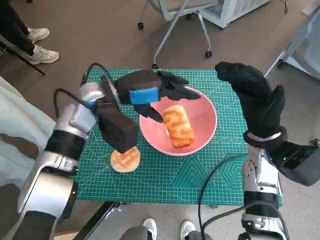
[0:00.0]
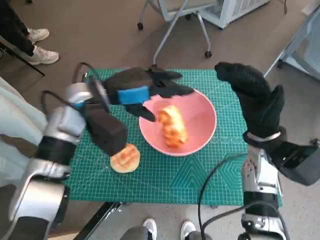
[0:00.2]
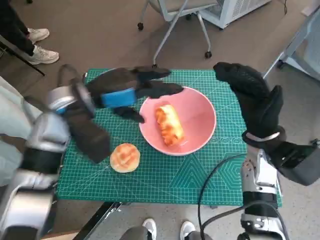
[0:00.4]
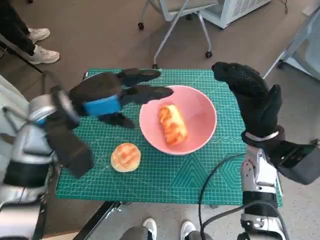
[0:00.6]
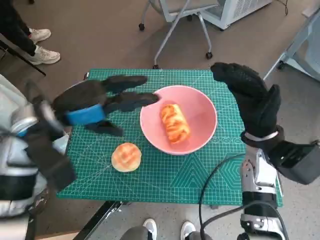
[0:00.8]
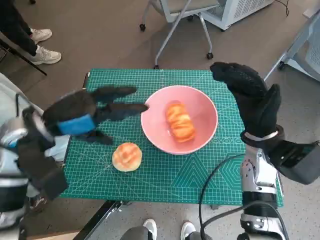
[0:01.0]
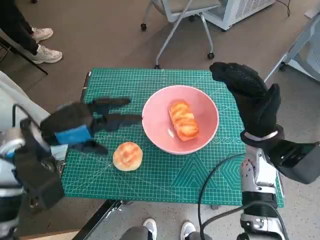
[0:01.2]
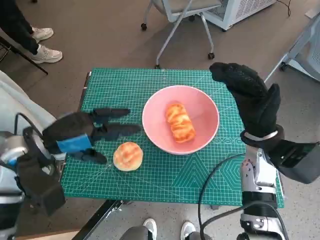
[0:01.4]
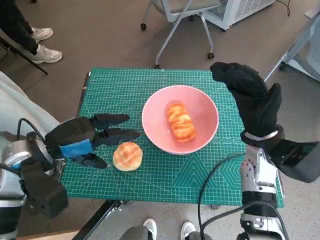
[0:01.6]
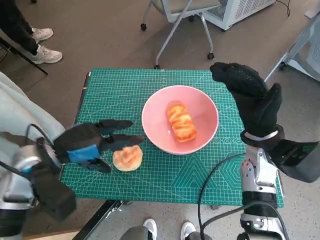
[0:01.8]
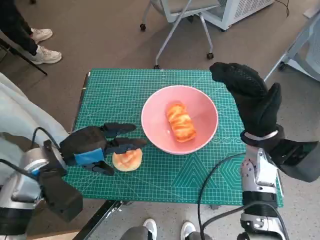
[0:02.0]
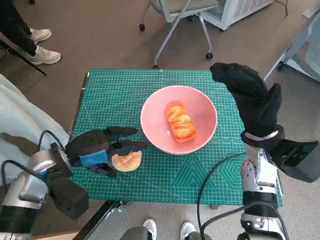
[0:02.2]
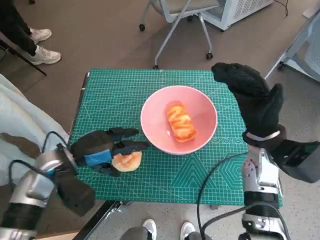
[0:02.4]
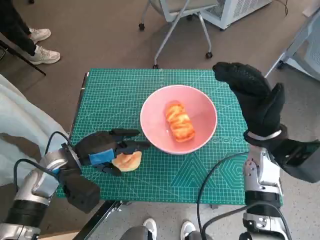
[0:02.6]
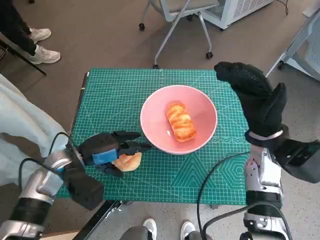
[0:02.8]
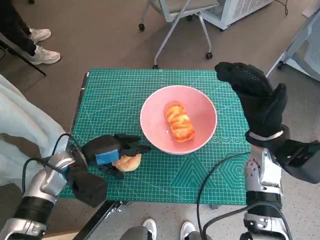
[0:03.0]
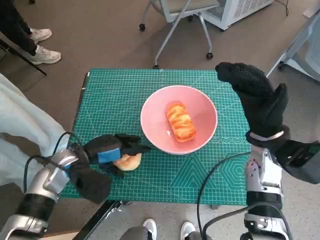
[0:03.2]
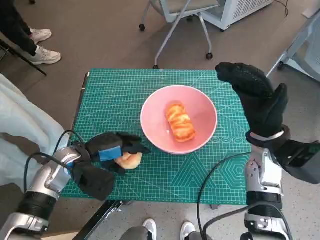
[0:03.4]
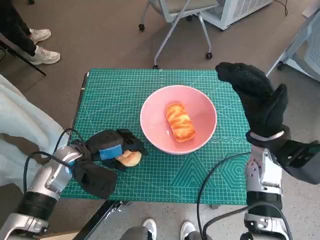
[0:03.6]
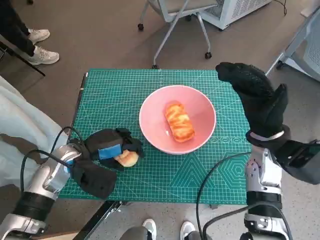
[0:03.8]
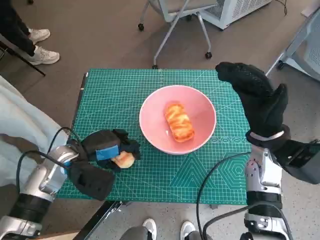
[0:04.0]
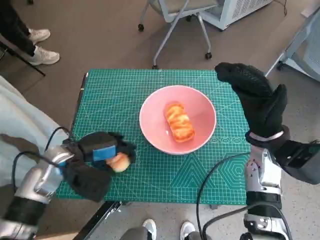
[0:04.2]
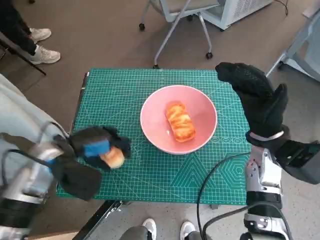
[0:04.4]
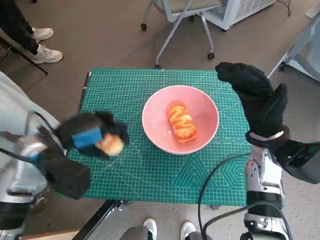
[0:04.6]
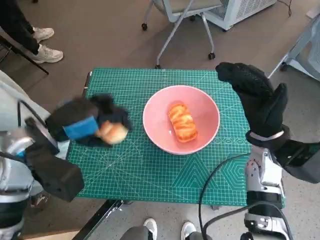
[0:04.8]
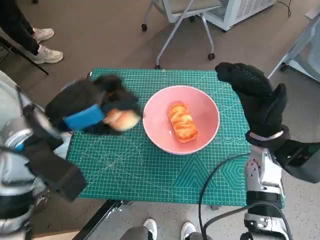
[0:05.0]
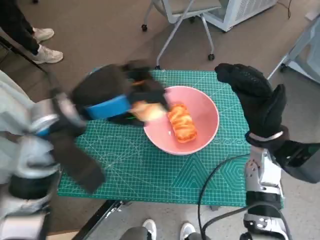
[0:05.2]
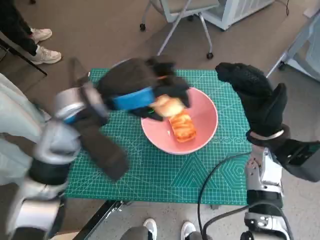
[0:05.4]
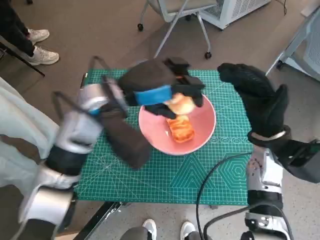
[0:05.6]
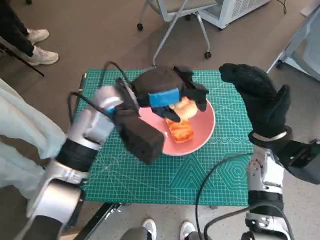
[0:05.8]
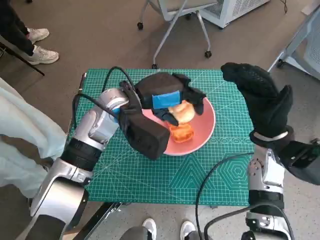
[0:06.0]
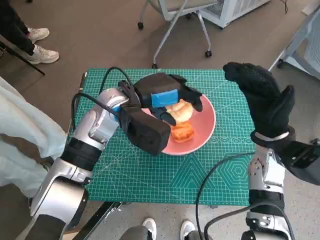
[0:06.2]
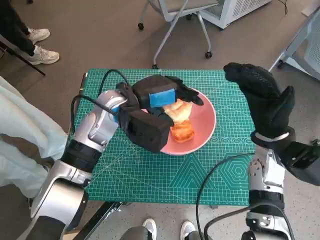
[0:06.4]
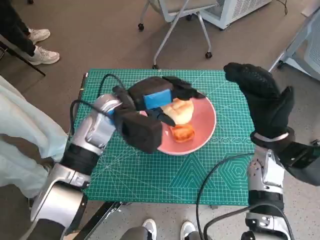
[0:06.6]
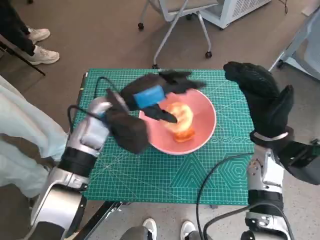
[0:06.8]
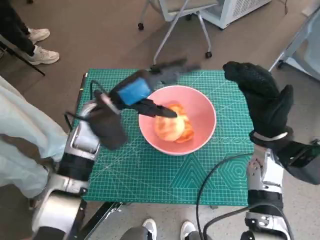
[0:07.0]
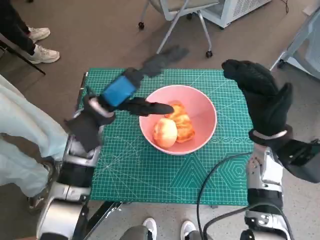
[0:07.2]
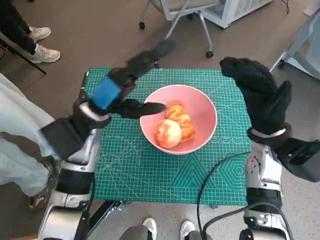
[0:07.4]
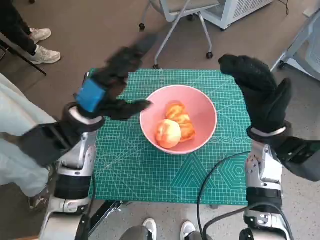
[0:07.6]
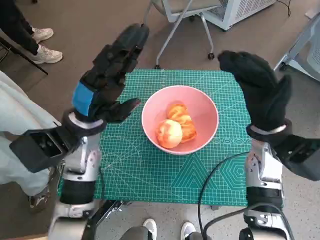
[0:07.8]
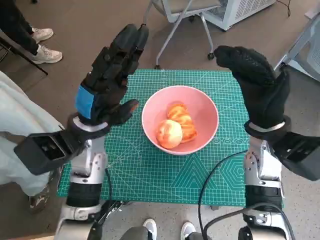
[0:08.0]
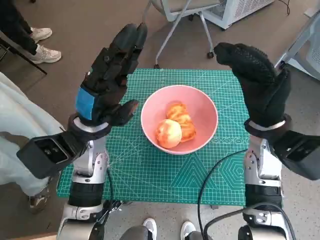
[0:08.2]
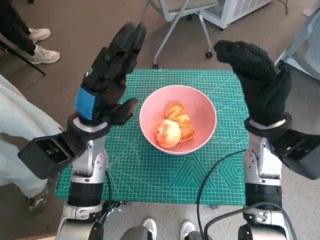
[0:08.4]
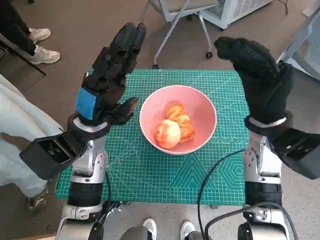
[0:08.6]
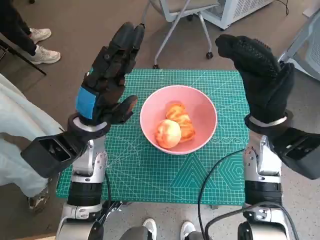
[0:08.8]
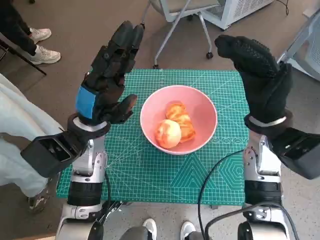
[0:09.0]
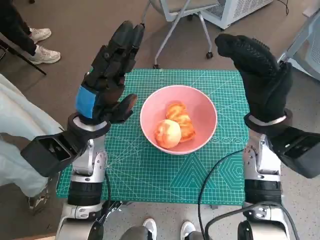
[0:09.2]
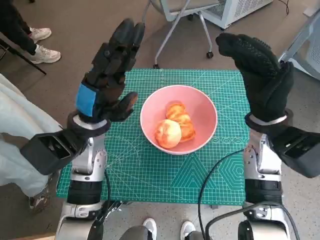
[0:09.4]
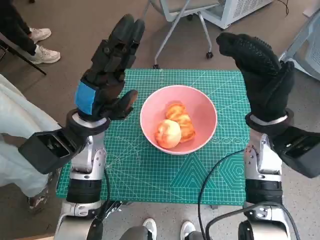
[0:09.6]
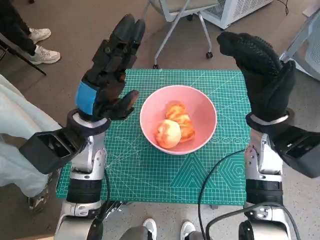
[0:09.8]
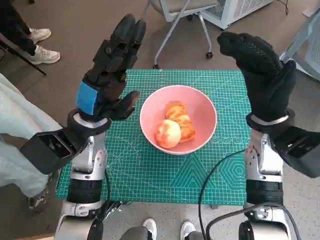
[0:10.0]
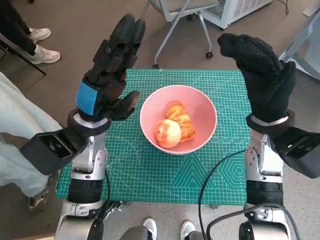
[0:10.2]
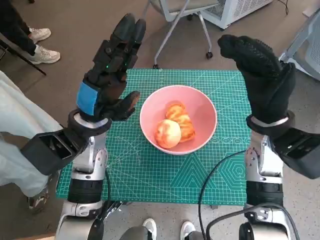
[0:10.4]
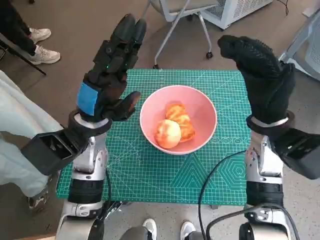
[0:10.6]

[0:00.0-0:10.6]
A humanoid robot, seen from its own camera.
Task of the whole recording: Push the bowl into the center of the table and put the bread into the bowl.
Step, 0:00.8 to 0:04.0: Grasp the round bread with left hand.
Step, 0:04.2 to 0:07.2: Place the round bread in pink bowl with left hand.
0:00.0 to 0:01.6: The left hand is displaced to the left and backward by about 15 cm.
0:01.6 to 0:03.0: The left hand travels downward by about 10 cm.
0:03.0 to 0:04.6: The left hand travels upward by approximately 10 cm.
0:04.6 to 0:06.0: The left hand is displaced to the right and forward by roughly 15 cm.
0:06.0 to 0:07.6: The left hand travels to the left by roughly 5 cm.
0:09.0 to 0:10.6: Both hands stay about where they are.

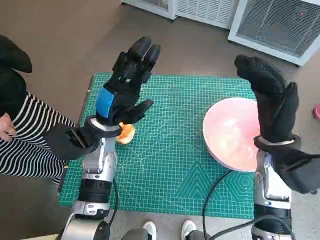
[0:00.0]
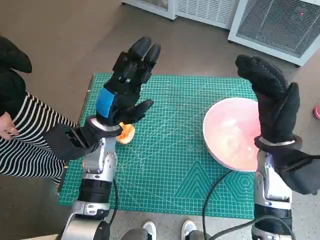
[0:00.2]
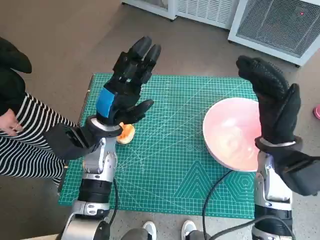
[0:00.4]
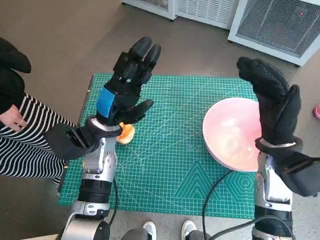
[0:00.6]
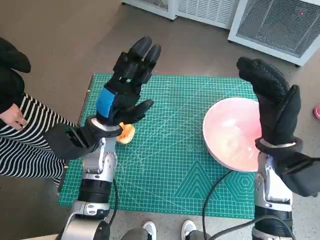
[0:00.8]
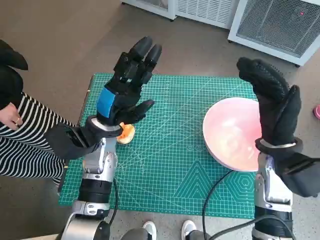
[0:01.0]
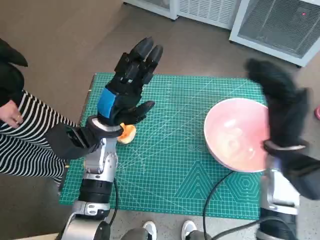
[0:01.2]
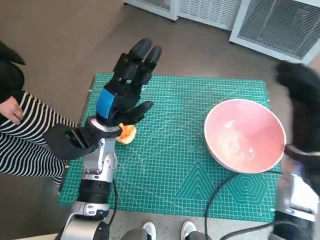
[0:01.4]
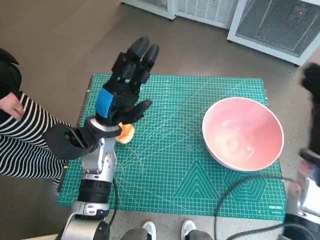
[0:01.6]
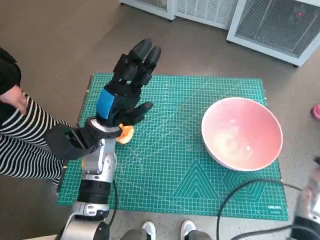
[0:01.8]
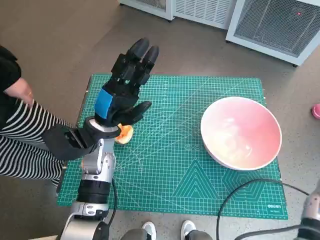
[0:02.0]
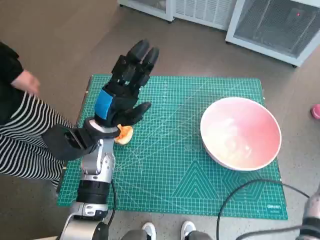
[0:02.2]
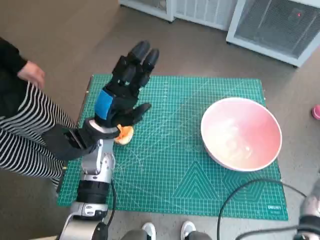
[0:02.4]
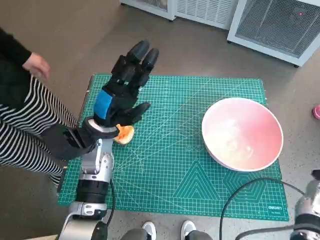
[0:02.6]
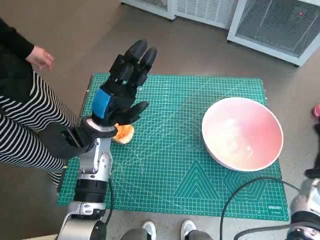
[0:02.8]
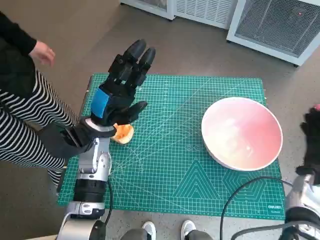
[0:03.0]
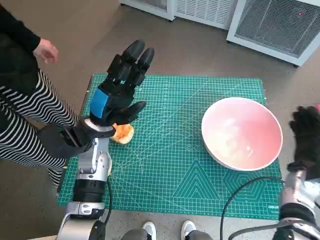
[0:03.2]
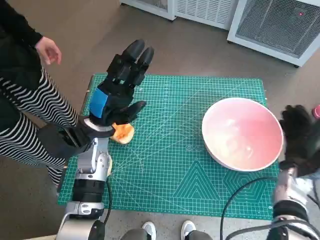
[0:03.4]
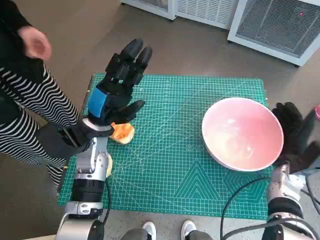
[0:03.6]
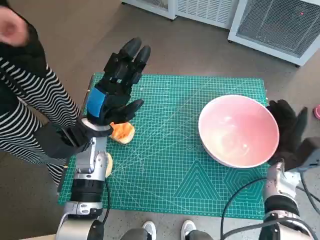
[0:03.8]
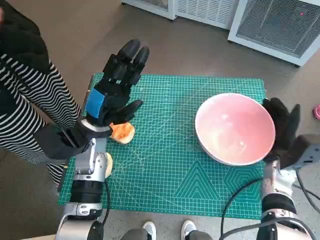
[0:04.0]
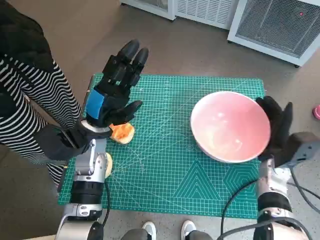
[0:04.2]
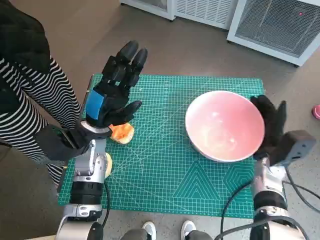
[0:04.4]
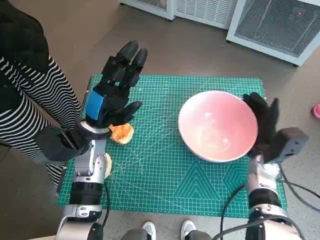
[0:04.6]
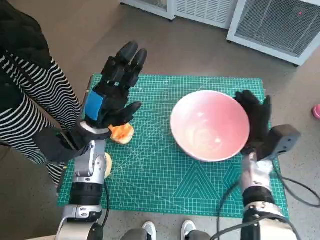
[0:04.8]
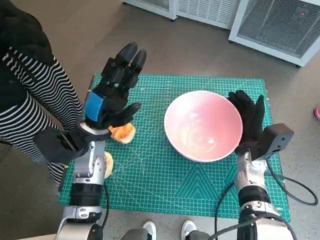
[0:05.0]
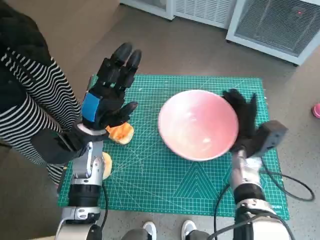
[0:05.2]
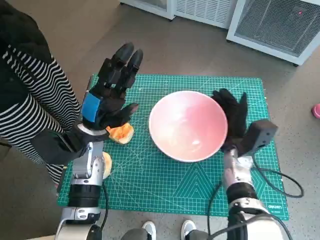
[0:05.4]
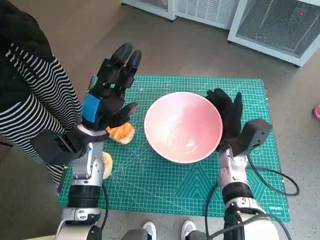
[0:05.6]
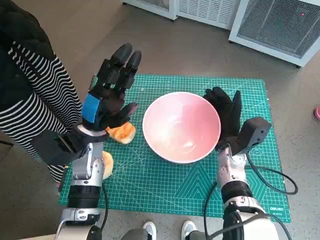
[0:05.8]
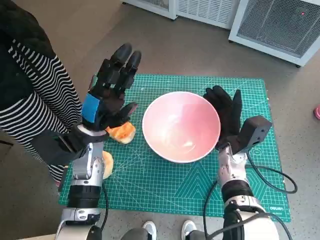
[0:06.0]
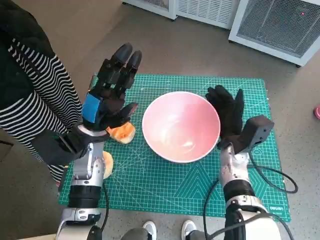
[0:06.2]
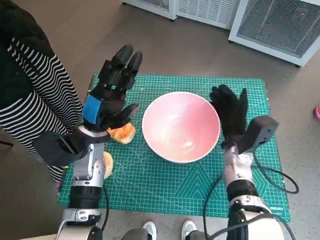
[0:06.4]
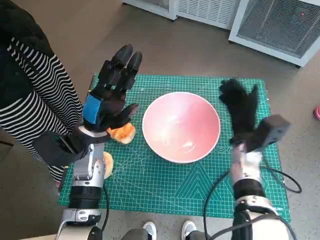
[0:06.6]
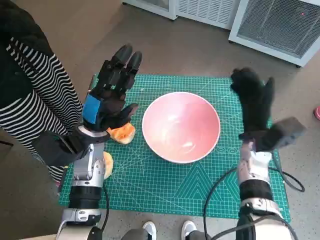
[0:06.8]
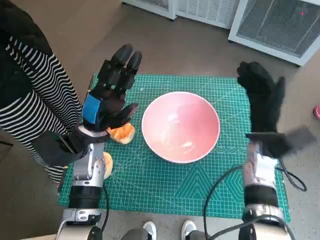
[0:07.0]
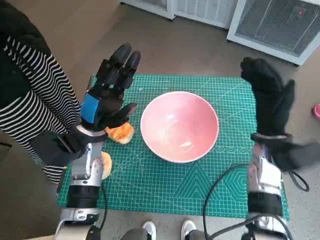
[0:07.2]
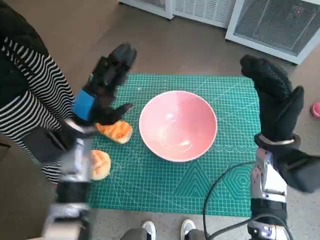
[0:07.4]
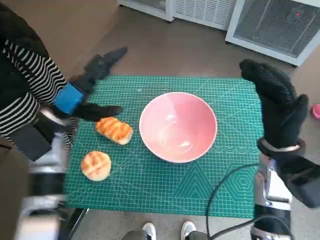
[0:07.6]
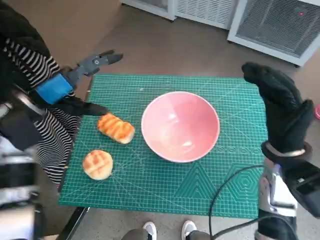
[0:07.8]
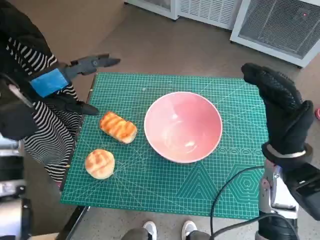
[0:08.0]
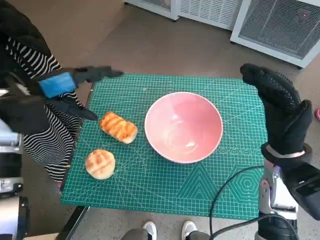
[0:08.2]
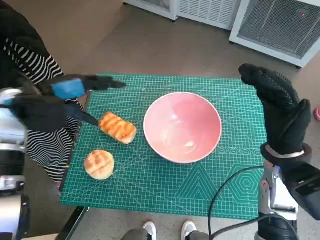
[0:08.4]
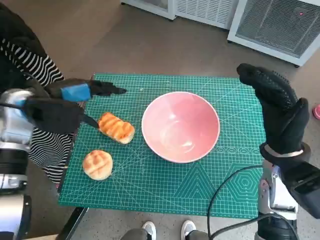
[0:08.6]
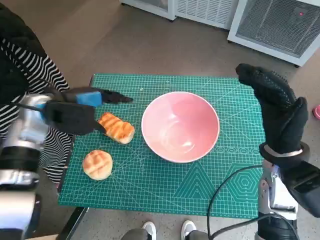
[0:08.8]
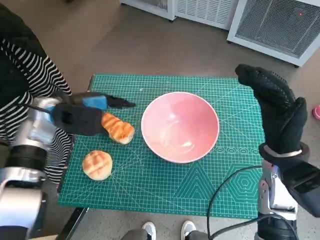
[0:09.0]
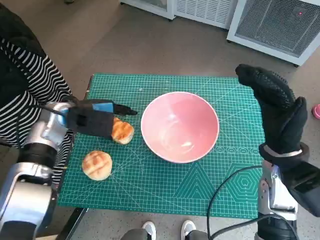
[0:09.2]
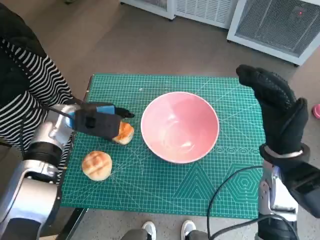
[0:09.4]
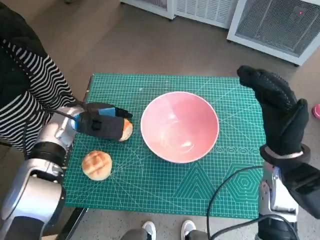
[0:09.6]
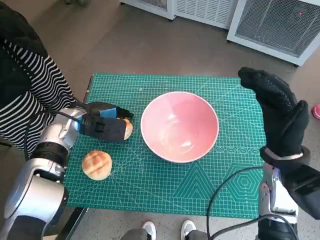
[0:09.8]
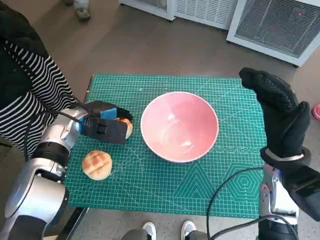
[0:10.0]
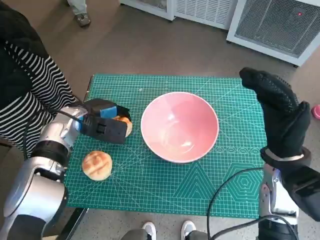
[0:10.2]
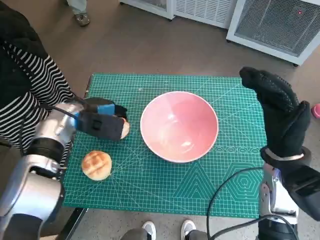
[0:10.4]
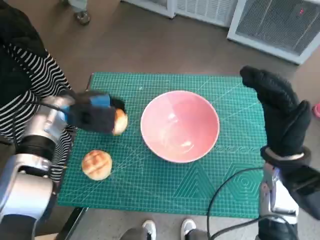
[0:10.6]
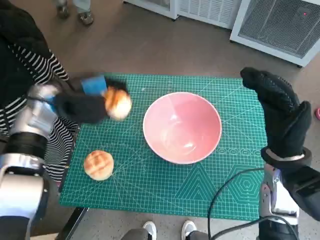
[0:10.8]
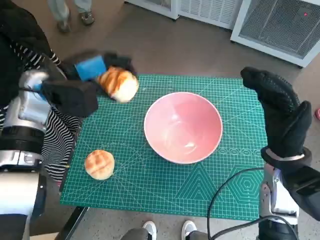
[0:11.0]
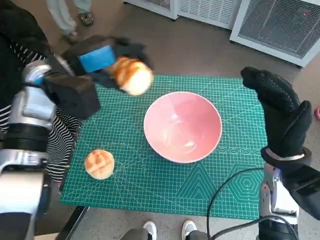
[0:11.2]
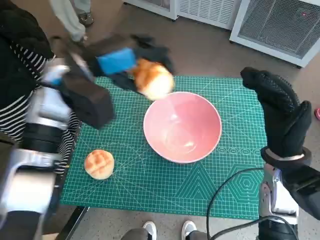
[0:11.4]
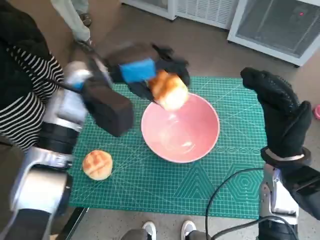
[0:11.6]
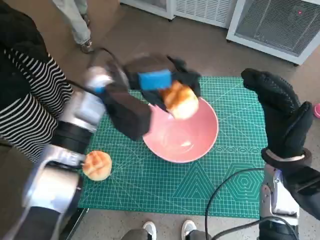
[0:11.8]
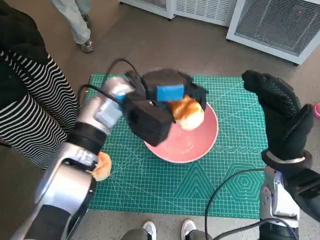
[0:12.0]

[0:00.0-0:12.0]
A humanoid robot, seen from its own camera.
Task of the whole recording: Push the bowl into the center of the table and put the bread into the bowl.
Step, 0:00.0 to 0:06.4: Move the pink bowl to the center of table with right hand.
Step, 0:06.6 to 0:10.2: Grasp the long bread with left hand.
0:01.6 to 0:03.0: The right hand is displaced downward and to the right by roughly 10 cm.
0:03.0 to 0:04.4: The right hand travels to the left by some 10 cm.
0:04.4 to 0:06.0: The right hand goes approximately 10 cm to the left.
0:06.0 to 0:07.6: The right hand travels upward and to the right by approximately 10 cm, while the left hand travels to the left by about 5 cm.
0:10.4 to 0:12.0: The left hand goes some 15 cm to the right and upward.
